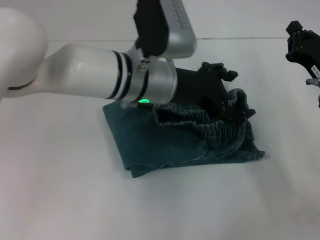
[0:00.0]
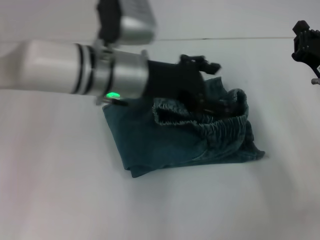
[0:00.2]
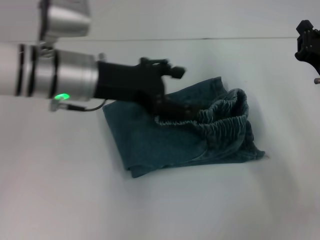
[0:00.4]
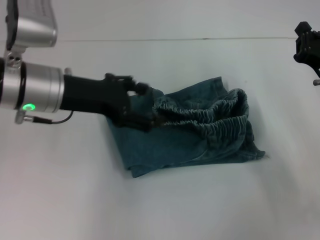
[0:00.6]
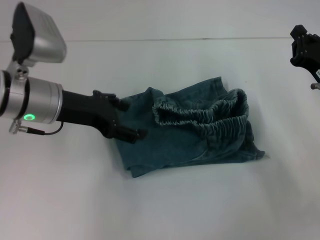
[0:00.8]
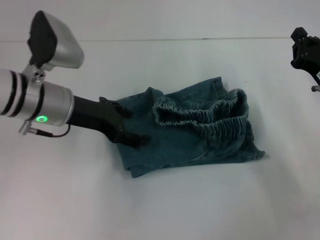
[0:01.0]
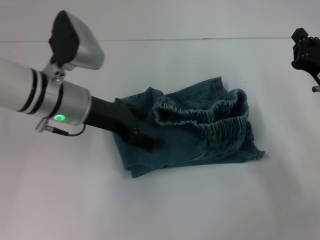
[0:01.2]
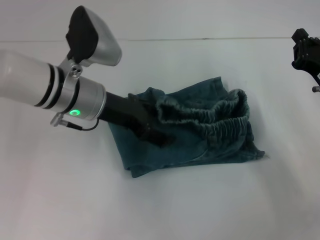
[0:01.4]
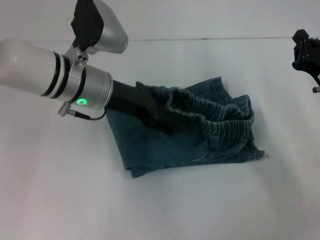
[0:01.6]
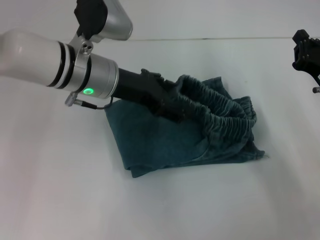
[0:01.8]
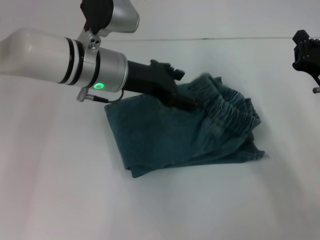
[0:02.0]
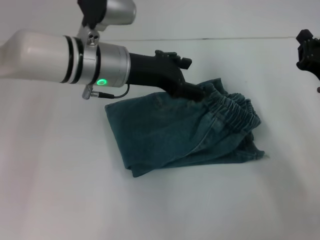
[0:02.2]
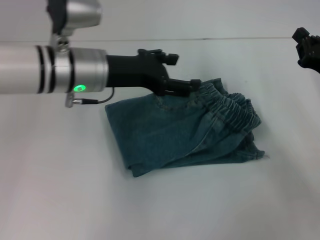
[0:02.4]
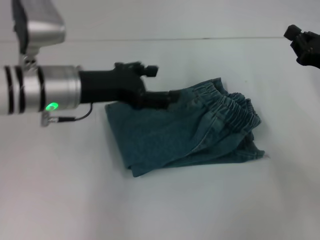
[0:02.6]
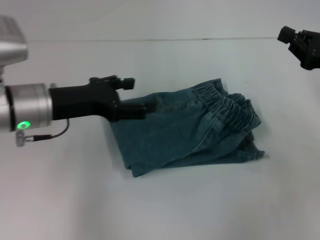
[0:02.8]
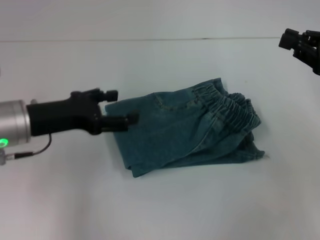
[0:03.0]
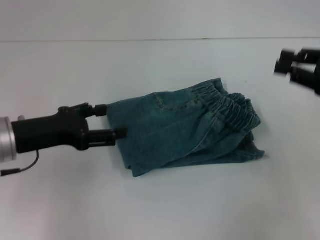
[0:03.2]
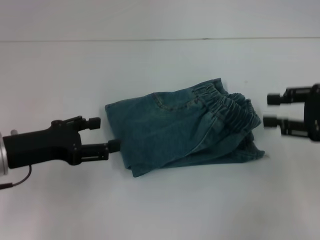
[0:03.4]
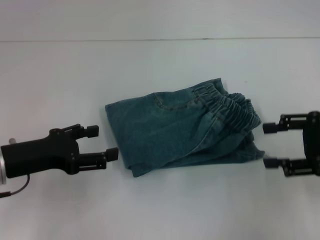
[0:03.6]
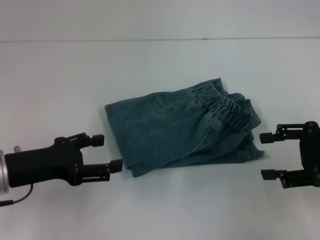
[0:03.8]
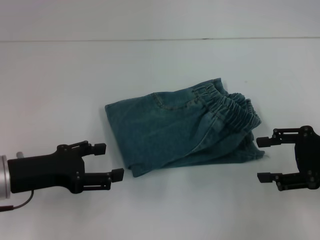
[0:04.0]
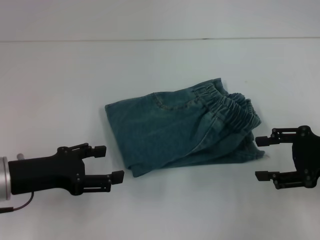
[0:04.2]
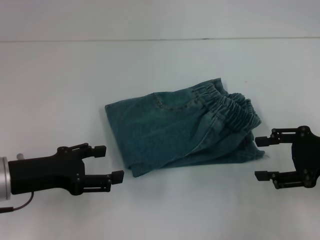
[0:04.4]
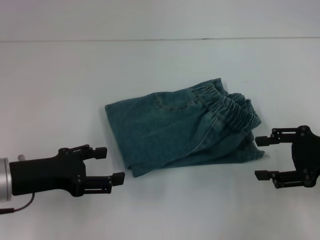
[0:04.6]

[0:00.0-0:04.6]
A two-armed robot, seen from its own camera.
Step, 0:00.0 to 0:02.4: Adjust the pants with your left hand.
0:00.0 to 0:01.6: The left gripper is displaced to the left by approximately 10 cm.
0:01.6 to 0:03.0: The right gripper is displaced upward by about 10 cm. The left gripper is displaced to the left and backward by roughly 10 cm.
0:03.0 to 0:04.6: The right gripper shifts by roughly 5 cm, and opens up. Meanwhile the left gripper heads backward, covering roughly 5 cm.

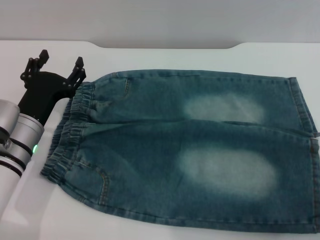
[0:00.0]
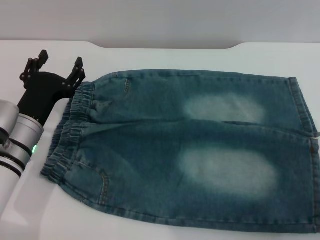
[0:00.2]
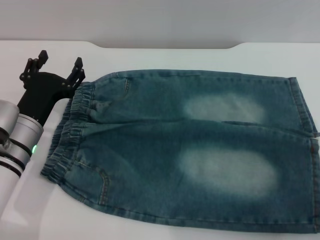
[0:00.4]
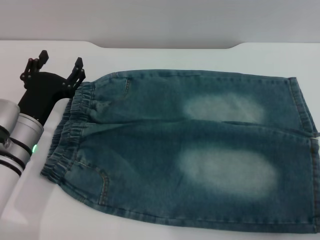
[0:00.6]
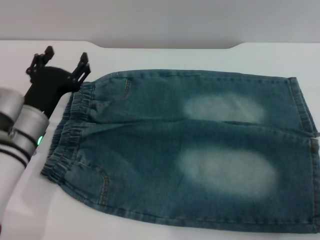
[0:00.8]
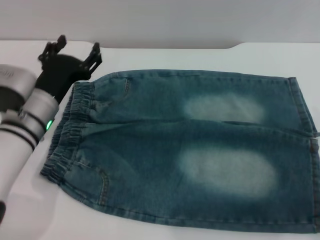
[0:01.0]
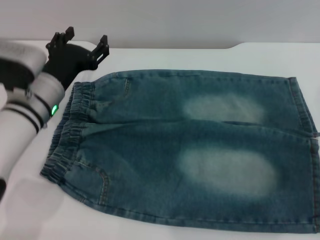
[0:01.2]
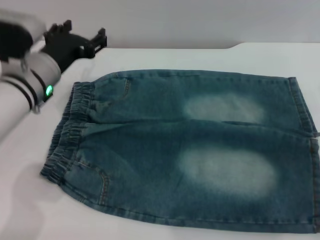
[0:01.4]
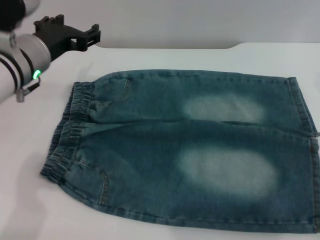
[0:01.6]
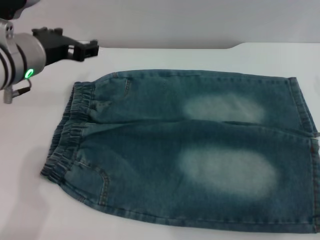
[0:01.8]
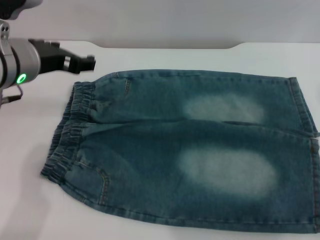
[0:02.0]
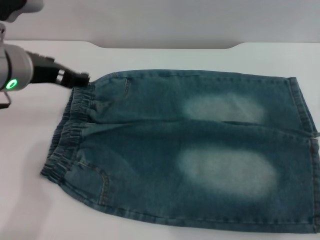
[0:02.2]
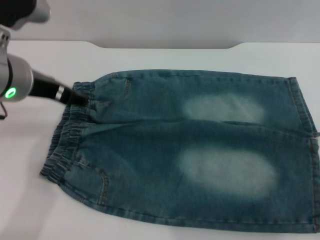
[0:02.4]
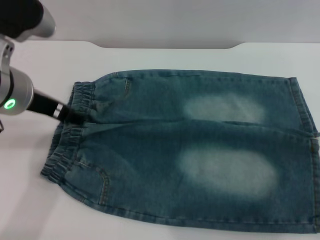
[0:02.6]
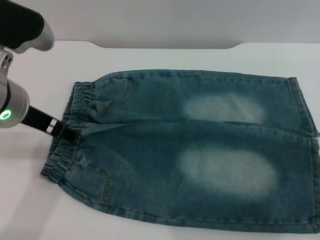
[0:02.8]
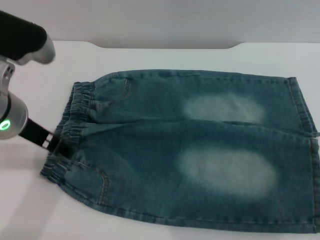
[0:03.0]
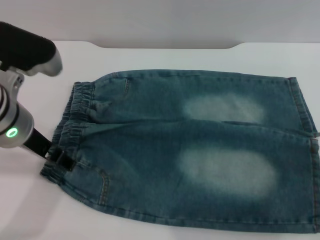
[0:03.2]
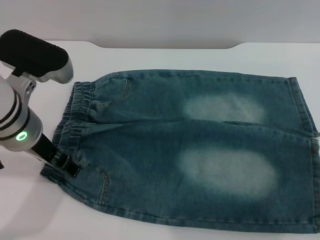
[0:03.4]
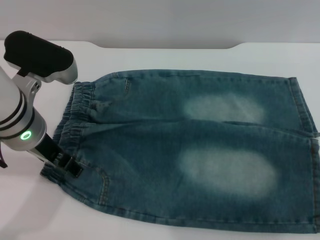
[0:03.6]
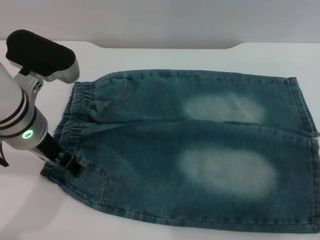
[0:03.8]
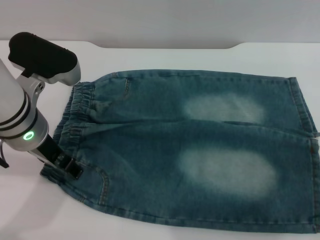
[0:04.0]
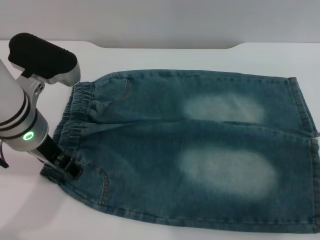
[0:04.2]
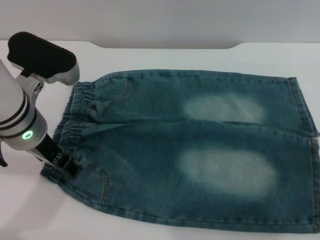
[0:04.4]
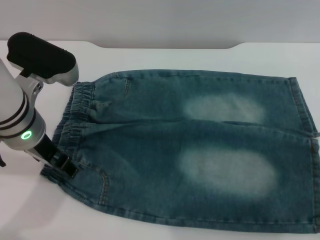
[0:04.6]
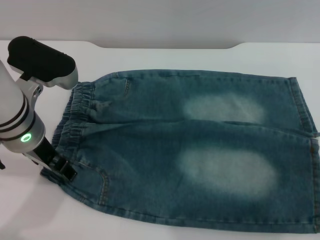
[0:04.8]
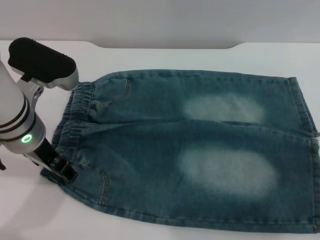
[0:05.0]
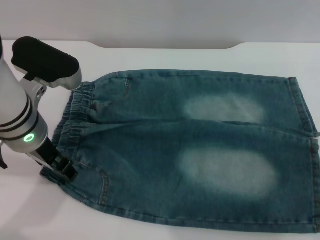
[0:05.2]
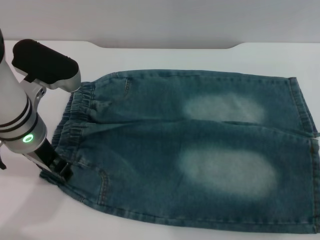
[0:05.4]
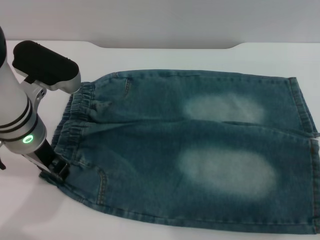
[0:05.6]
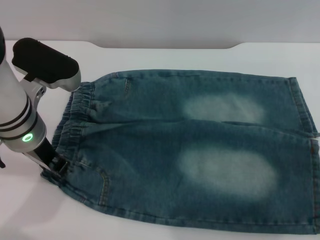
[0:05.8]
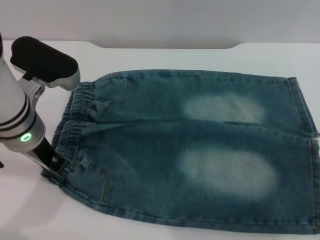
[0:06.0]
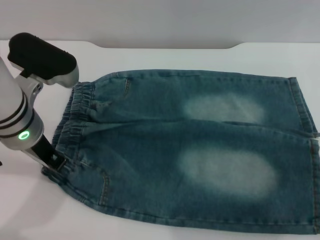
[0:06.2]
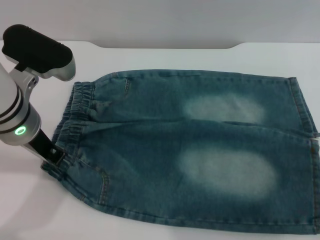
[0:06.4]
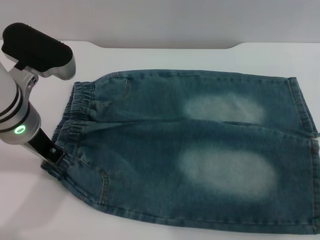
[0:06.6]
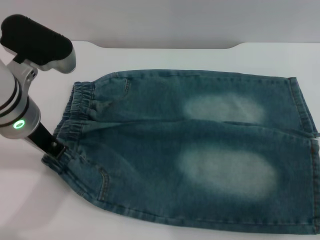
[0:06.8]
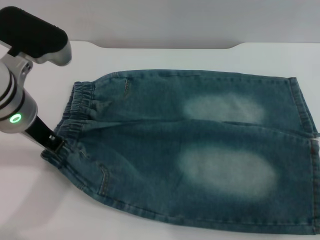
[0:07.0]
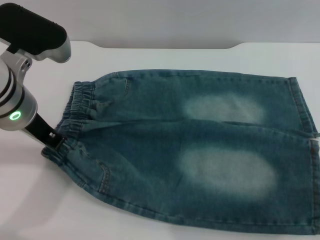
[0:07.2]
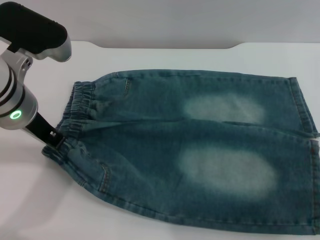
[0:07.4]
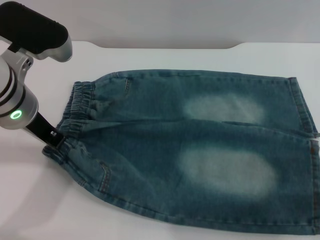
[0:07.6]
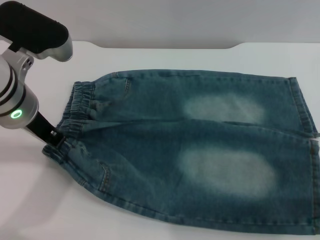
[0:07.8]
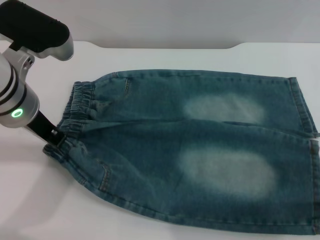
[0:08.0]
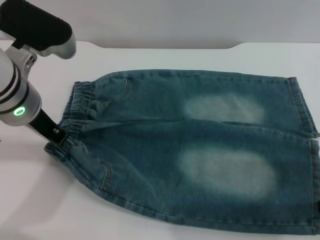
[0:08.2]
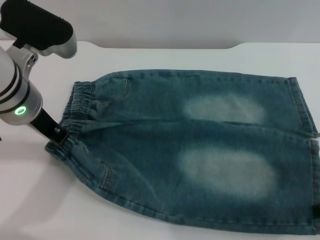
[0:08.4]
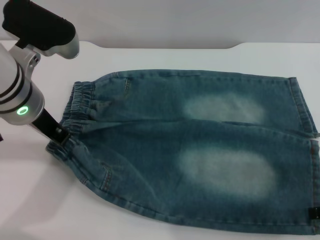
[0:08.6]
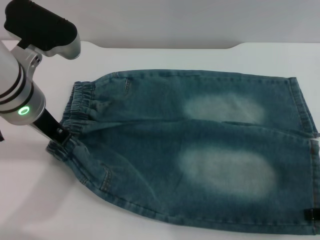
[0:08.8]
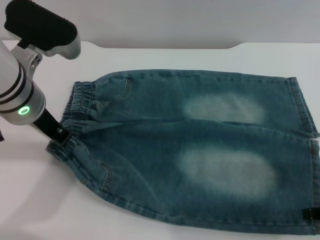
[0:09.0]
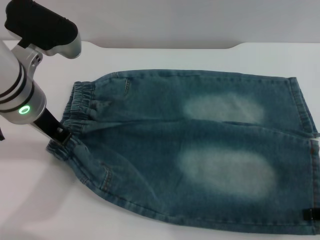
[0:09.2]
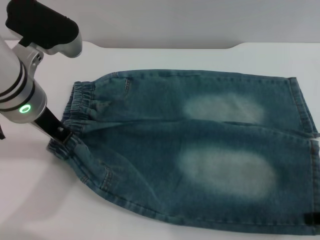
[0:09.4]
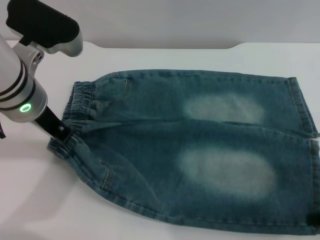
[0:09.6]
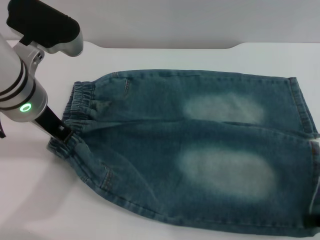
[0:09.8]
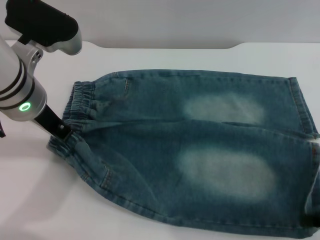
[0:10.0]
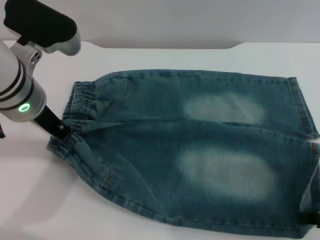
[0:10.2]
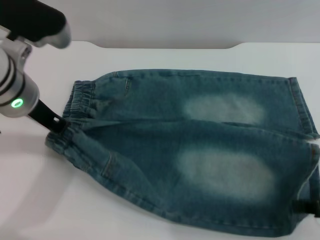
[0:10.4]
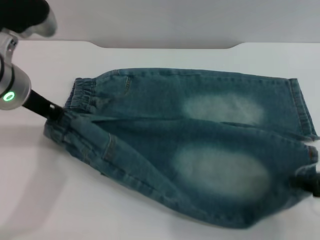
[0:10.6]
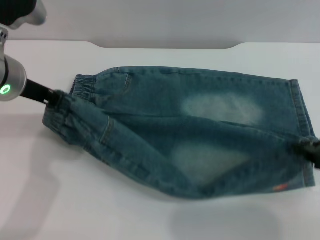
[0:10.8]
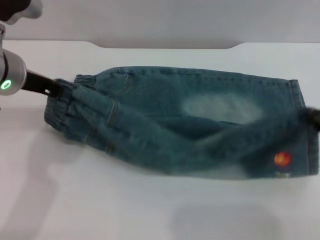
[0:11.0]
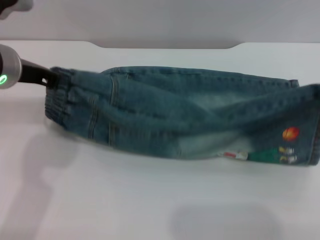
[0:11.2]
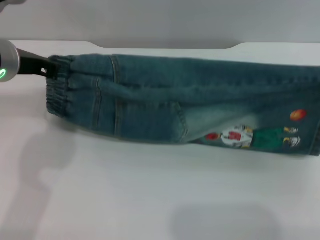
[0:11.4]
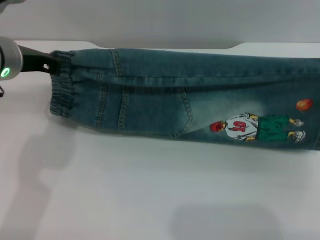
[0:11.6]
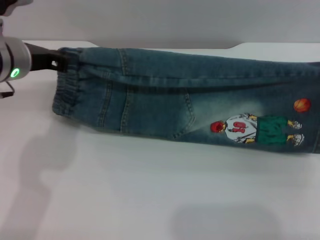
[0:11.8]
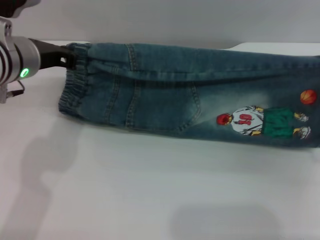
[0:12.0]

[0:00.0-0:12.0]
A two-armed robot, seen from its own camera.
0:00.0 to 0:01.6: The left gripper travels upward and forward by about 15 cm.
0:01.6 to 0:03.0: The left gripper moves backward, approximately 5 cm.
0:03.0 to 0:04.4: There are only small adjustments of the grippers.
0:04.4 to 0:06.0: The left gripper closes up.
0:06.0 to 0:07.6: The right gripper shifts by about 5 cm, while the left gripper closes.
0:07.6 to 0:09.0: The grippers make only small movements.
0:09.0 to 0:10.4: The right gripper closes.
0:10.4 to 0:12.0: The right gripper shifts approximately 5 cm forward.

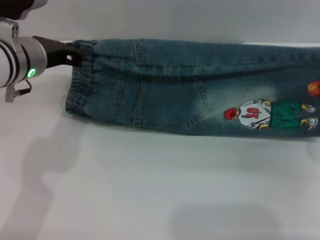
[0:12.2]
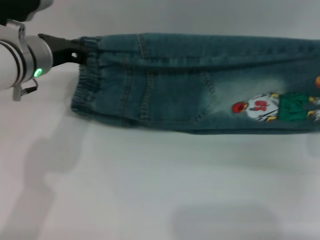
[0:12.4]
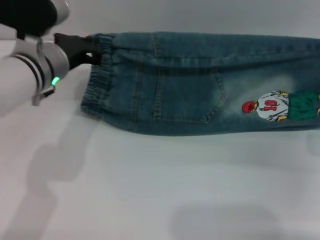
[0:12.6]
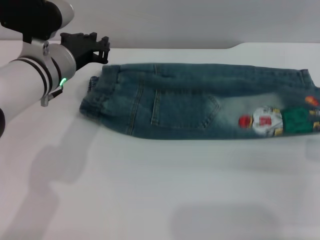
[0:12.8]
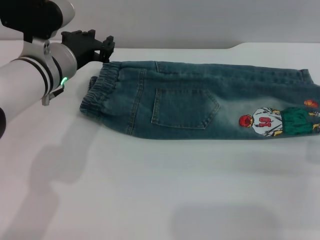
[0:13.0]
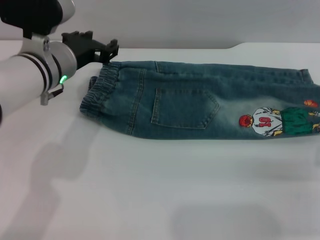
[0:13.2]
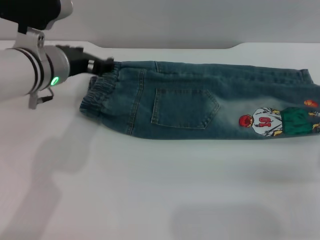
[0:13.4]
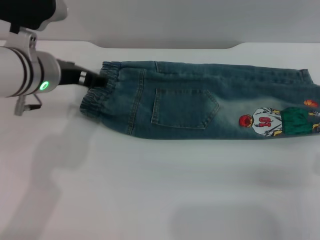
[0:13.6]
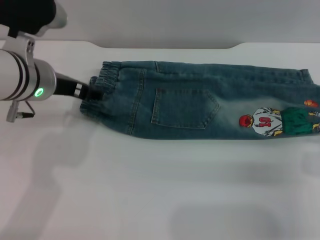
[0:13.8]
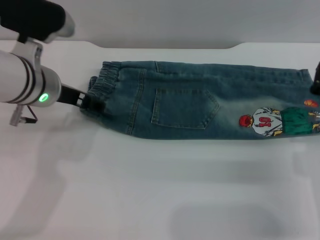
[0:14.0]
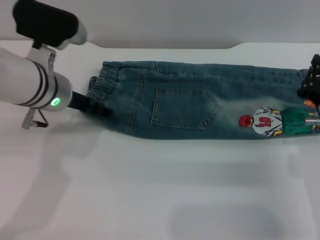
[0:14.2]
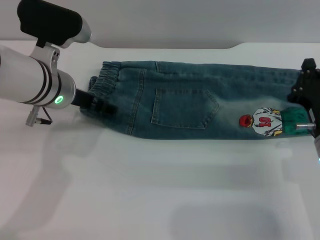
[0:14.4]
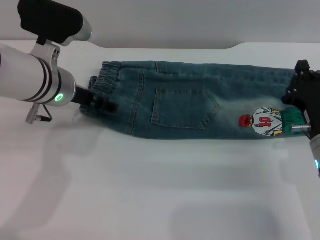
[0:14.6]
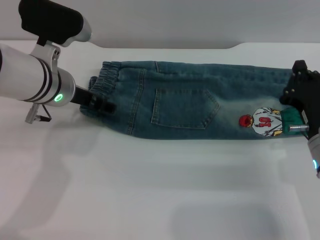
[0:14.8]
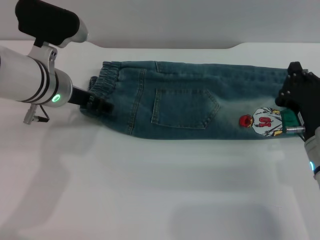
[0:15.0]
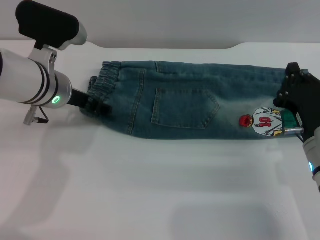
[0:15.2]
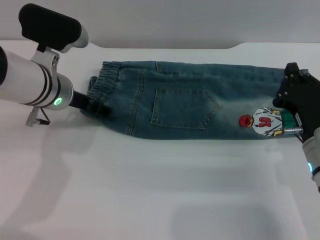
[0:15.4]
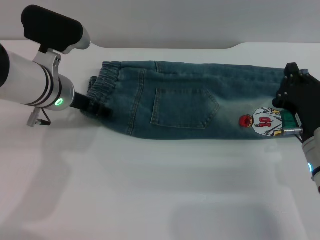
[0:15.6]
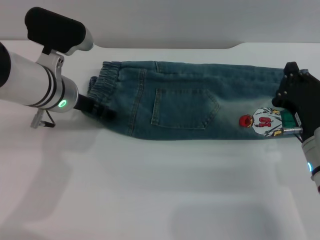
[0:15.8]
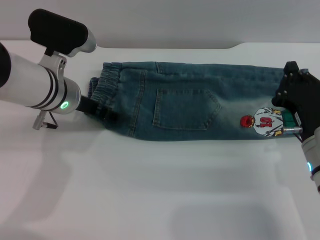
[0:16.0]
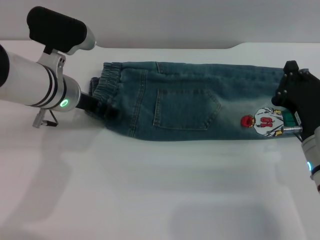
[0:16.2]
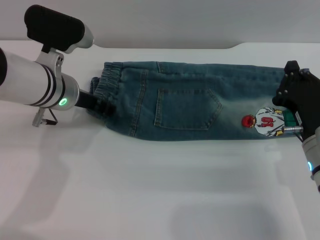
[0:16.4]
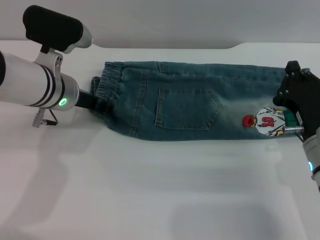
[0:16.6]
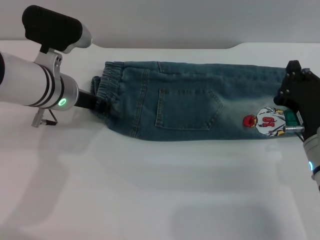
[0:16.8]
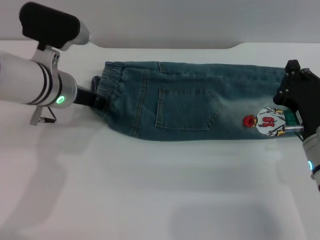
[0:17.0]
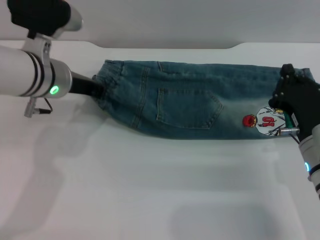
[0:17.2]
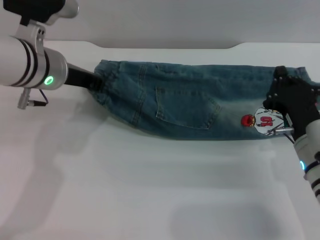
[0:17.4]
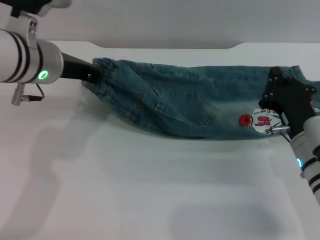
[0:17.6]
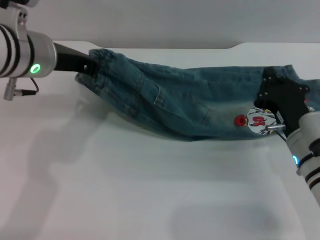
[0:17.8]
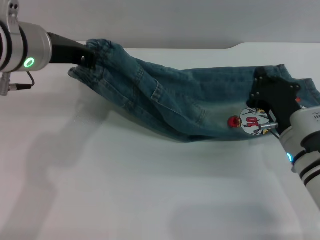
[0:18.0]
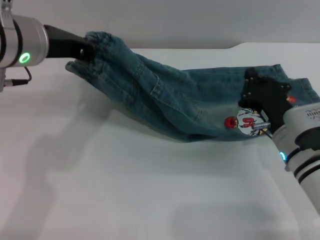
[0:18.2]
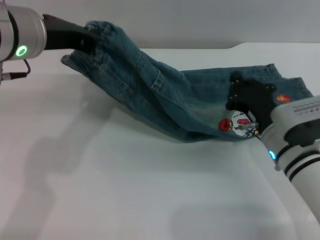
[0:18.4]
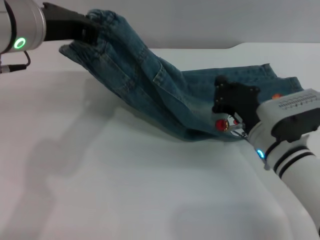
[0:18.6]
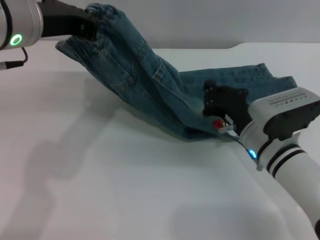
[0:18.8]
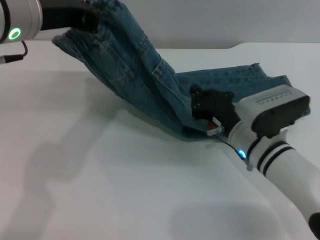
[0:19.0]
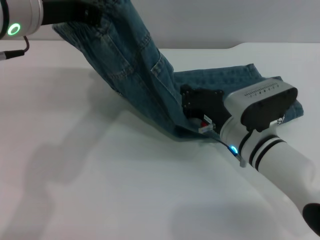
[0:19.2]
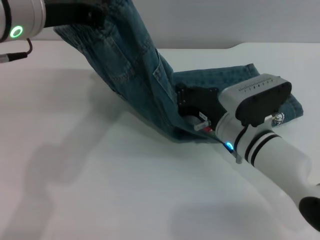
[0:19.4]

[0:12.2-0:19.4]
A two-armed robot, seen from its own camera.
Step, 0:12.2 to 0:15.2: Fold the bottom of the pants upward with both grippers.
0:12.2 to 0:13.6: The right gripper goes some 5 cm downward, and opens up. The left gripper opens.
0:13.6 to 0:15.0: The right gripper goes about 5 cm to the left, and closes its fingers.
0:15.0 to 0:16.6: The left gripper closes.
0:16.6 to 0:18.0: The left gripper moves upward, approximately 10 cm, and closes.
0:18.0 to 0:19.4: The left gripper goes approximately 5 cm upward; the right gripper goes some 10 cm to the left.
